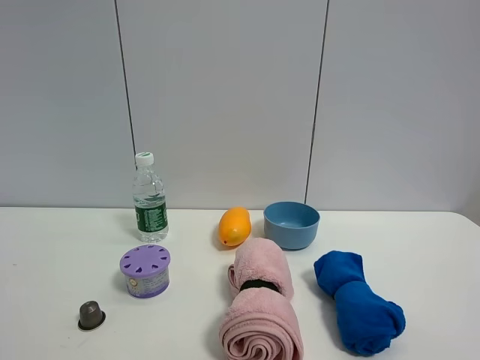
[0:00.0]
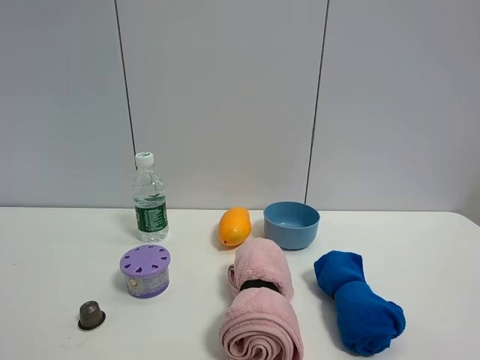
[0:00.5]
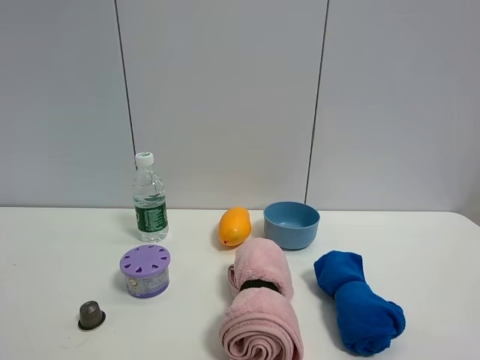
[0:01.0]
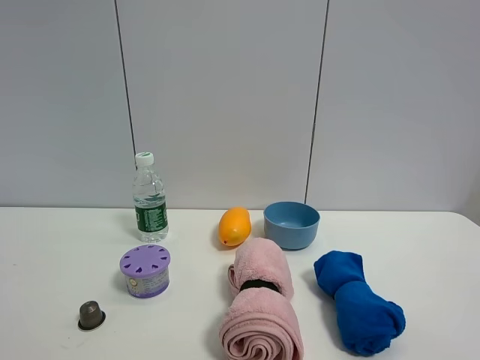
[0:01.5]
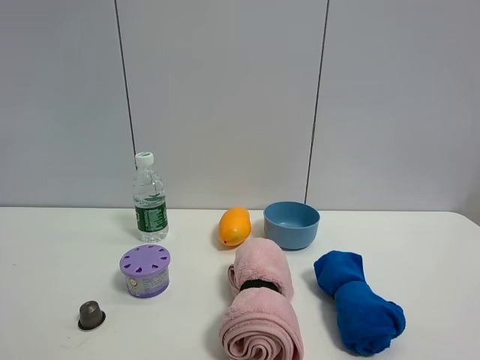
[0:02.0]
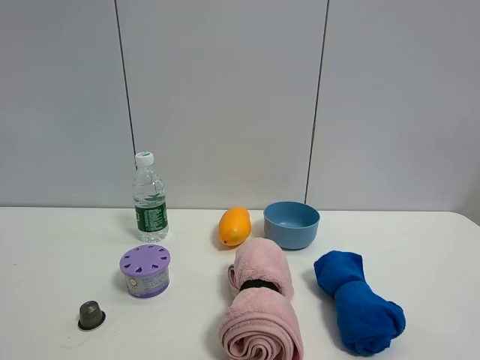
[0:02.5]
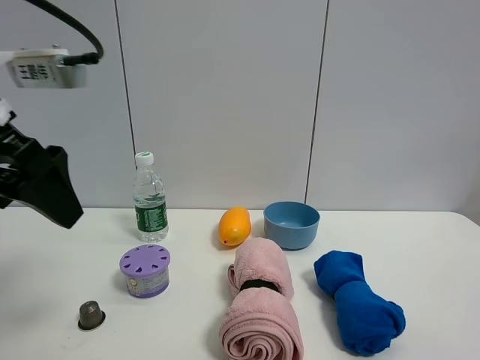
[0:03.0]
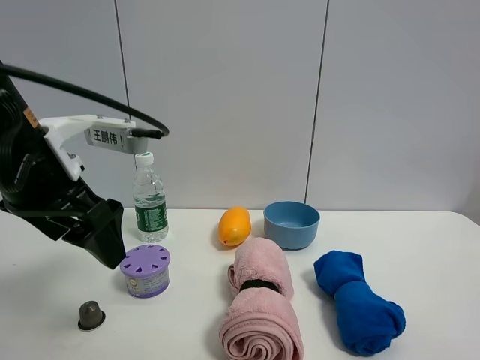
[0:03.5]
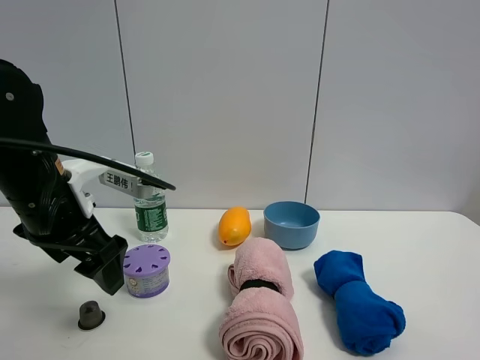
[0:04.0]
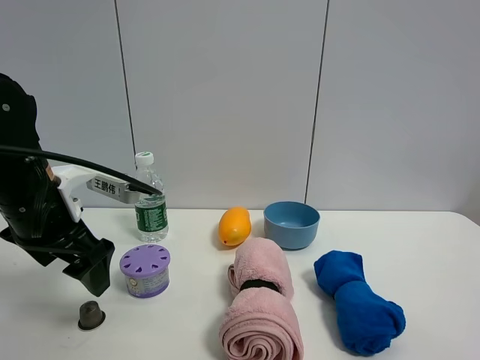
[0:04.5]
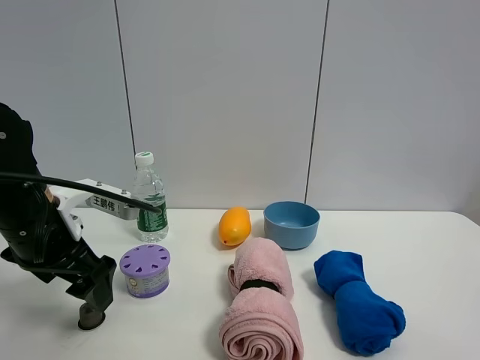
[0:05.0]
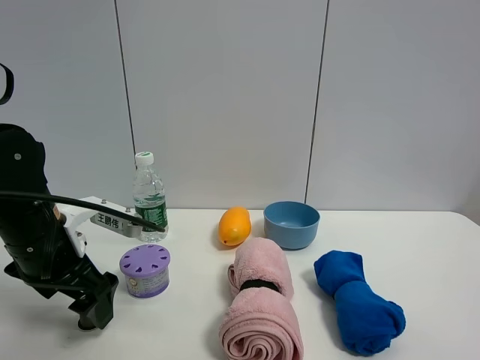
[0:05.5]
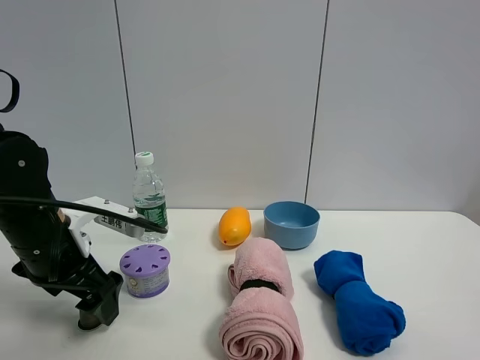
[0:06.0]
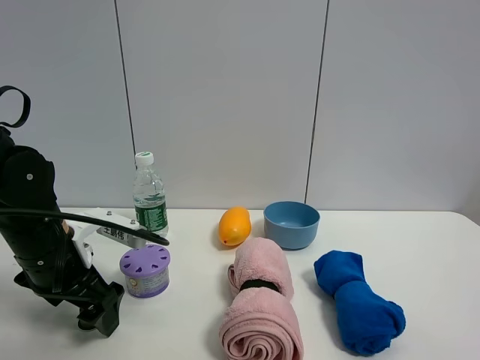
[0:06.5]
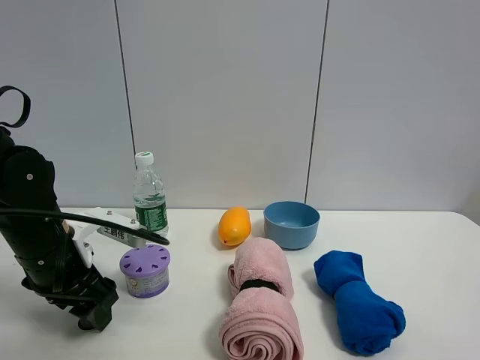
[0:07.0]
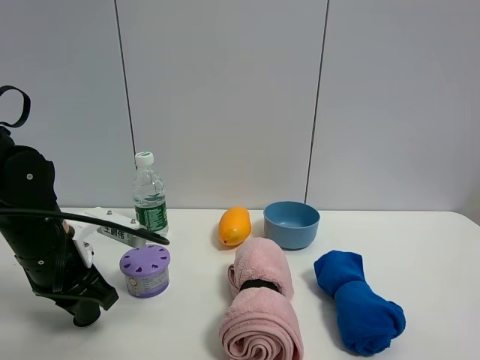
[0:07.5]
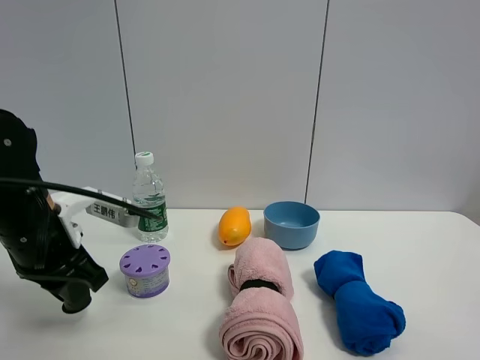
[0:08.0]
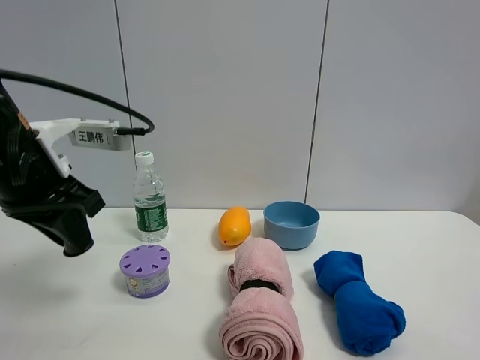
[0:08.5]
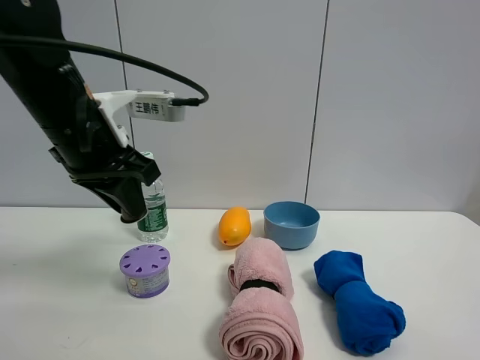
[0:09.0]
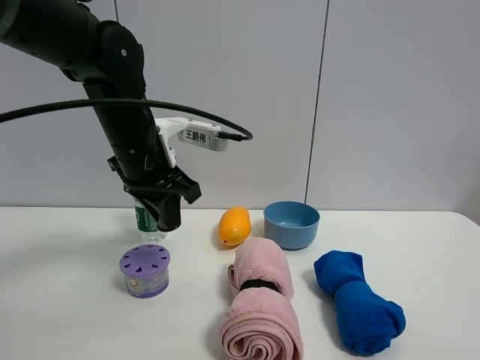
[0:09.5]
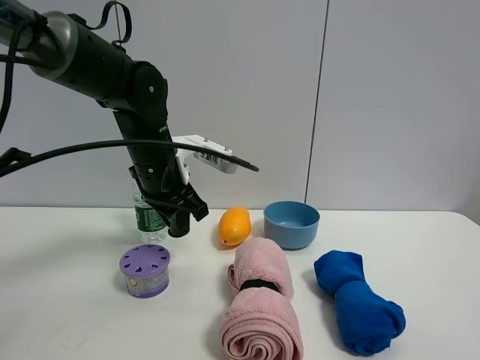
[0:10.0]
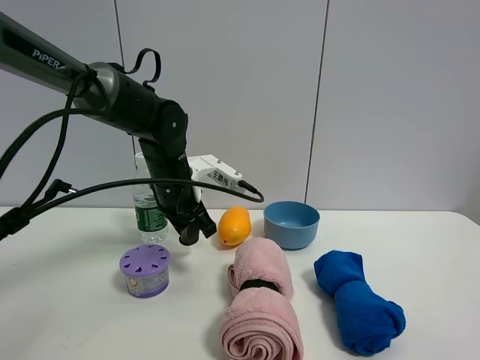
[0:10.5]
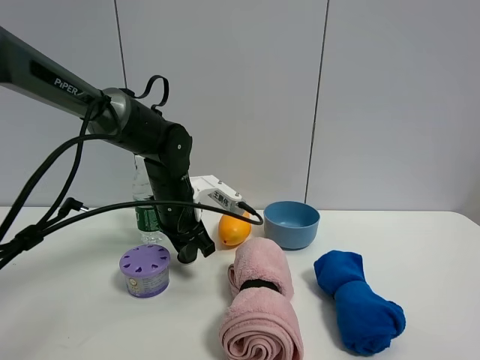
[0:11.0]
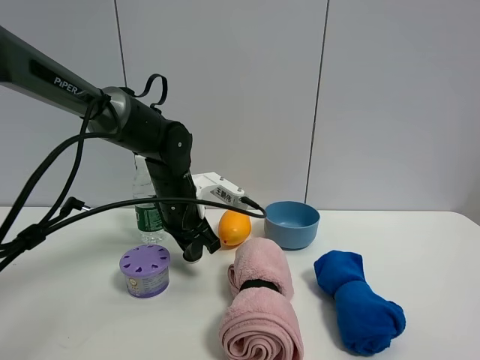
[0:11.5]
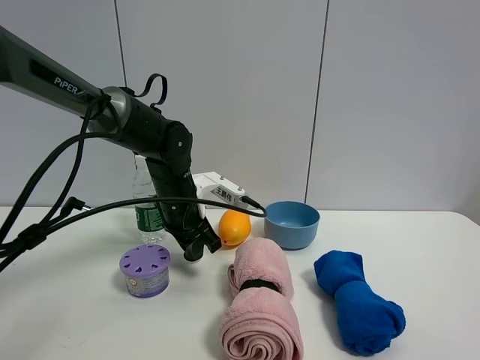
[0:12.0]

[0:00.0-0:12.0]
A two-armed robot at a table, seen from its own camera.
Task of the whole recording: the gripper move the object.
Step, 0:00.0 to 0:07.0: Grasp the coffee capsule with the left gripper.
0:02.0 to 0:04.0: The left gripper travels forward, downward and to the right by approximately 30 cm.
0:04.0 to 0:06.0: The left gripper moves downward, roughly 5 cm.
0:06.0 to 0:08.0: The left gripper closes.
0:08.0 to 0:10.0: The left gripper heads to the right and forward, covering about 15 cm.
0:10.0 to 0:12.0: The left gripper moves downward, approximately 5 cm.

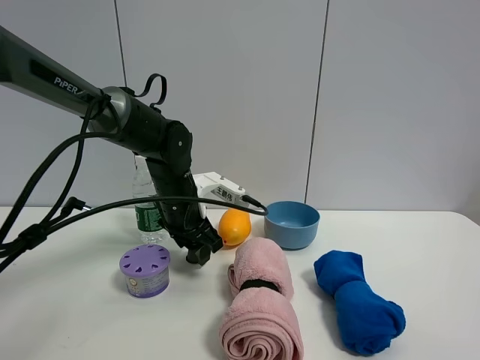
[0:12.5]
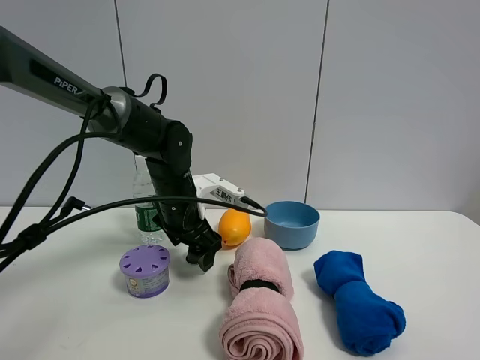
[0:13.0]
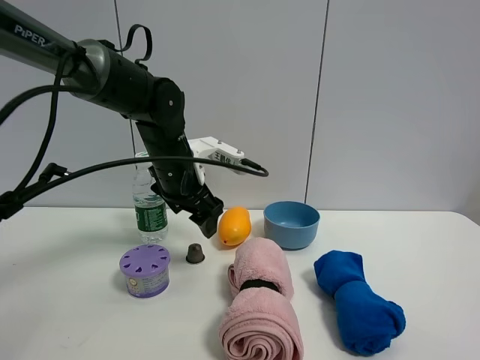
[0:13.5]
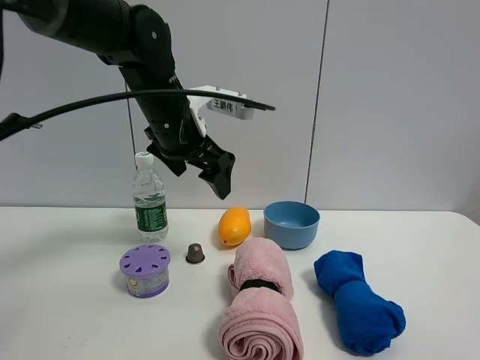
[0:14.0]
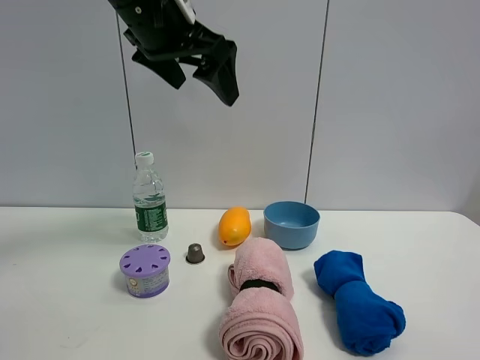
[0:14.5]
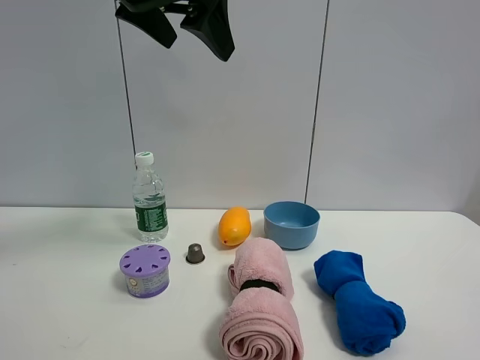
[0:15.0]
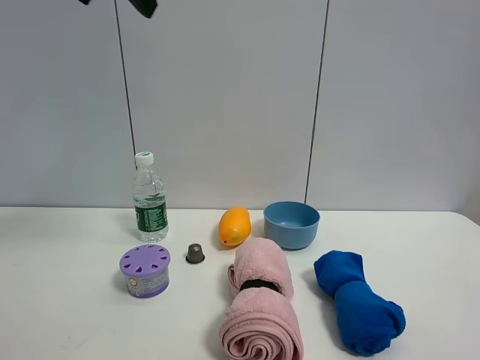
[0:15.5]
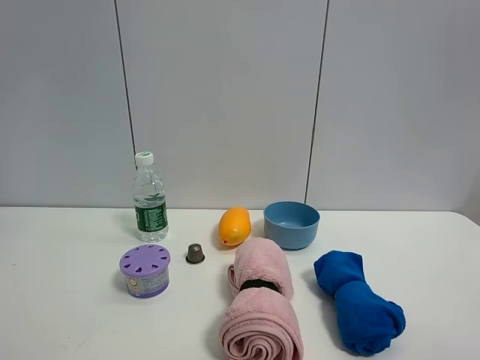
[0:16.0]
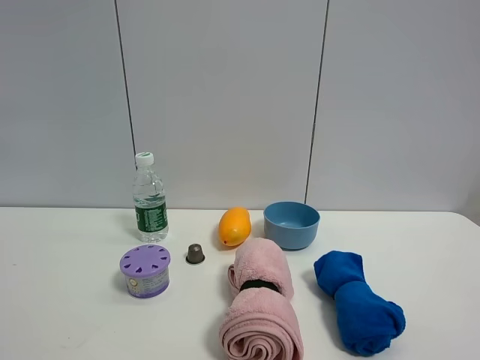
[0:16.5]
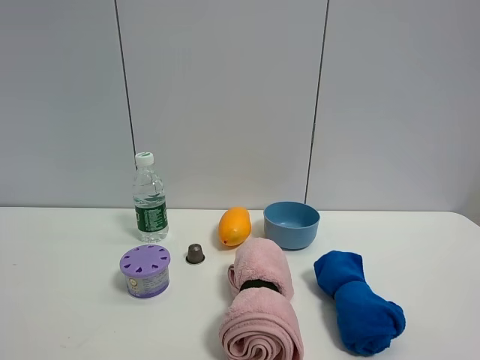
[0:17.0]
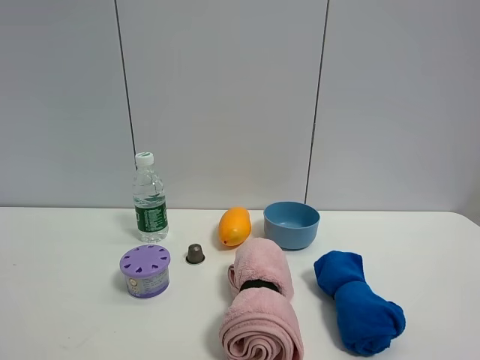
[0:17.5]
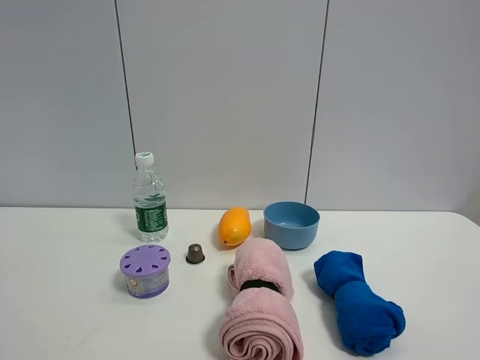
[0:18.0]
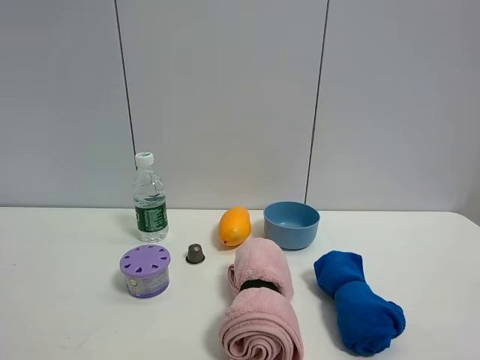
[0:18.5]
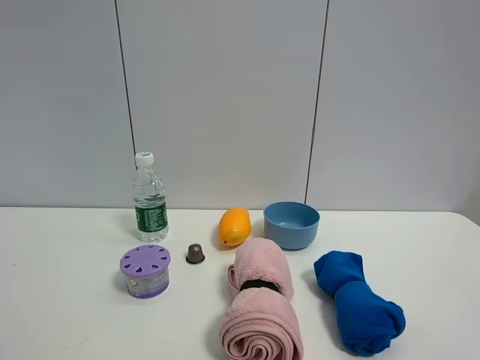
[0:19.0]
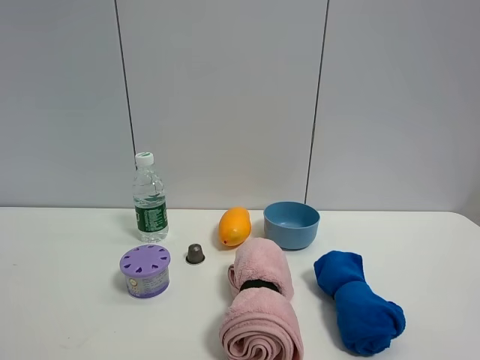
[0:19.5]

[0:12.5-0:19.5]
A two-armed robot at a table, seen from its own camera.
Task of the whole recording: the gripper move the object.
0:12.5 to 0:14.5: The left gripper moves upward, about 25 cm, and opens.
0:14.5 to 0:16.0: The left gripper is displaced to the left, upward and backward by about 25 cm.

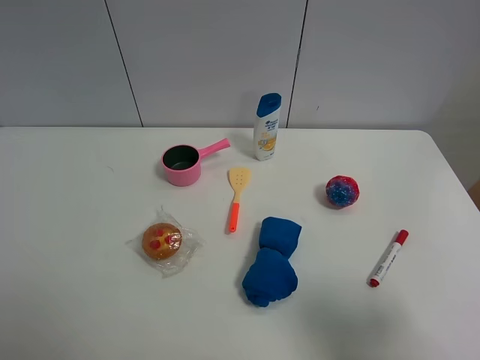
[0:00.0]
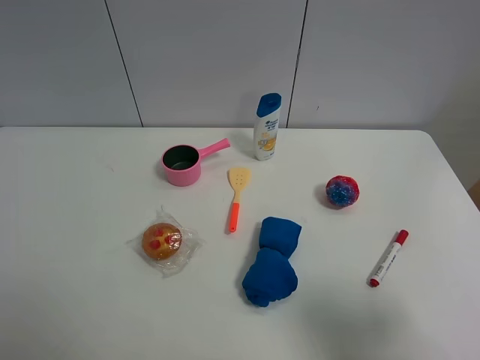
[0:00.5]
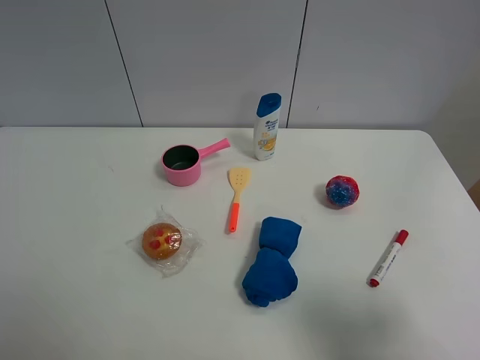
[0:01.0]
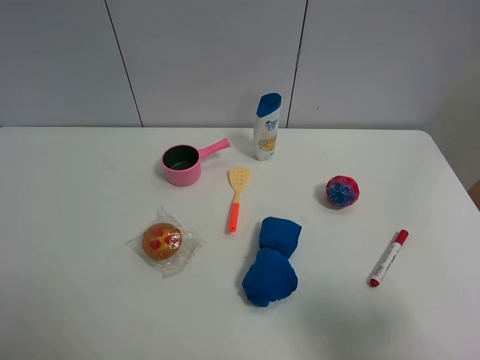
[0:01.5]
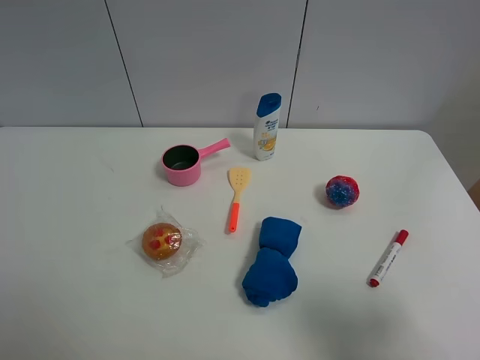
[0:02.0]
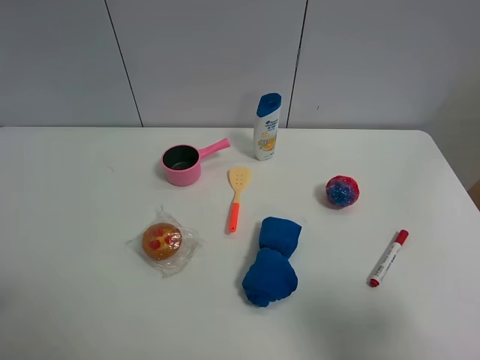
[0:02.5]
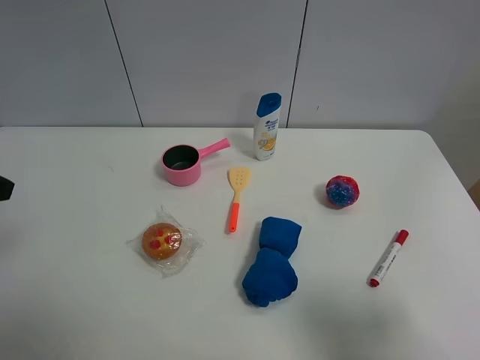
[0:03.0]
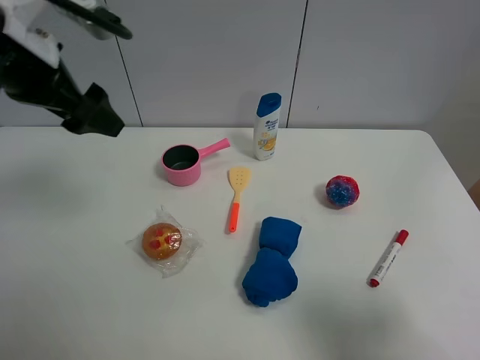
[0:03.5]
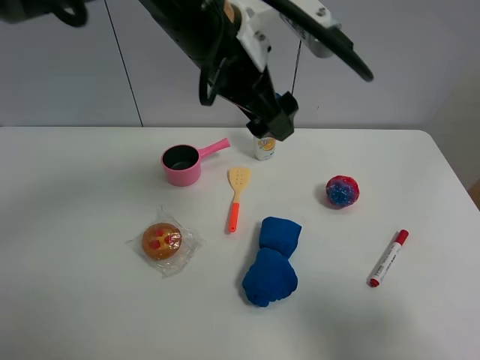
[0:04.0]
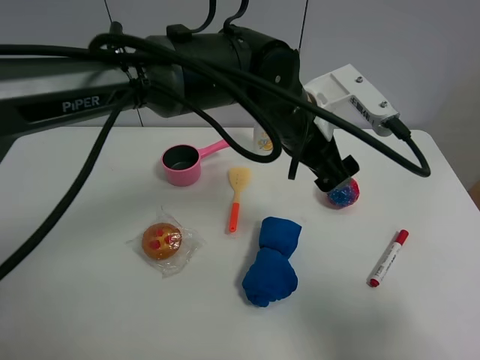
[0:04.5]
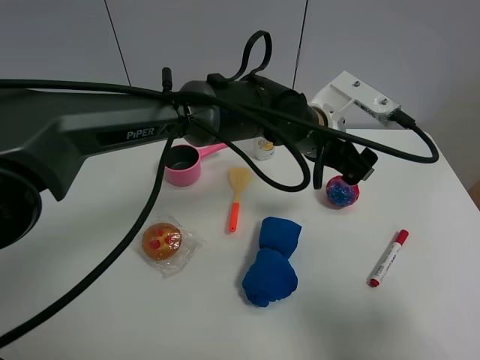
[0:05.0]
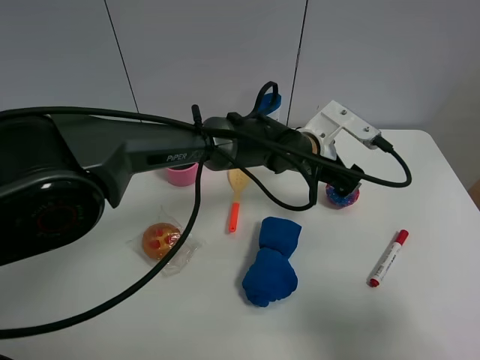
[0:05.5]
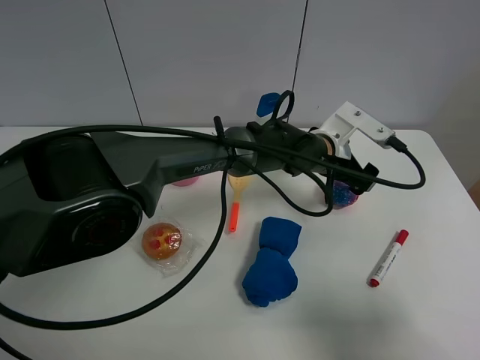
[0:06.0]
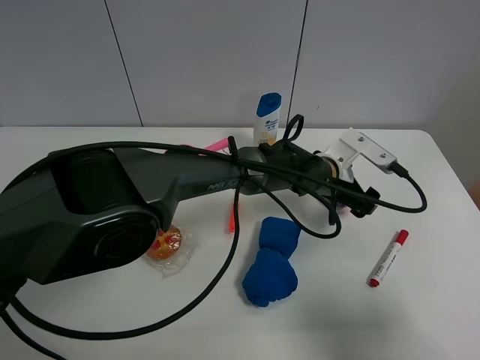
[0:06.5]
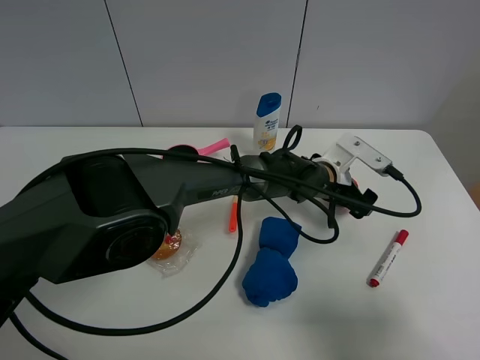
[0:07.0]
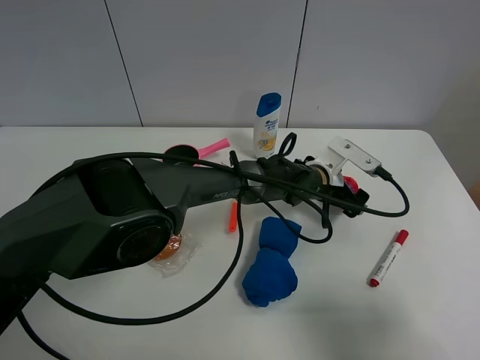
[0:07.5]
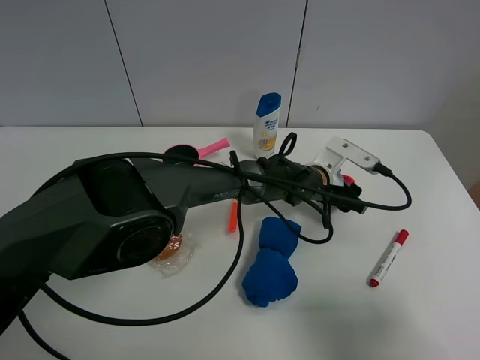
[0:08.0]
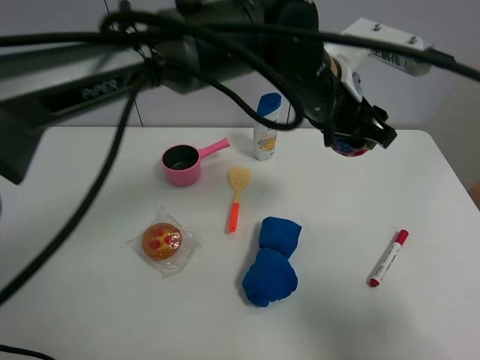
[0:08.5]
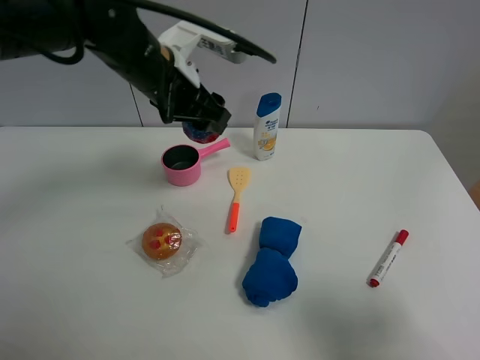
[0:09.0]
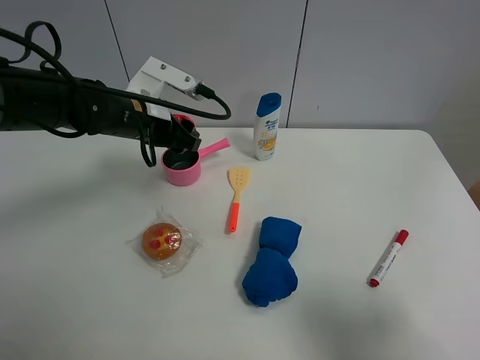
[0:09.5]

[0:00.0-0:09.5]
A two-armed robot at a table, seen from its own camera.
Task of the whole recording: the gripper move the object.
Step, 0:00.0 to 0:08.0: Grasp the colorful ball with the left gripper.
0:00.0 to 0:02.0: Both grippers stay put.
0:02.0 to 0:04.0: The left gripper travels to the right and forward by some 40 cm.
0:04.0 to 0:05.5: The left gripper heads downward and to the right, covering about 20 cm.
0:05.5 to 0:07.5: The left gripper travels downward by roughly 5 cm.
0:07.5 to 0:09.5: The left gripper goes about 30 cm to the left and upward, and closes its fingers.
